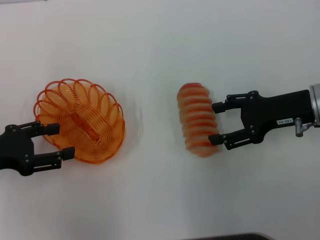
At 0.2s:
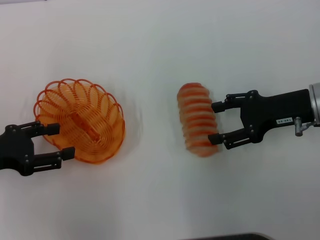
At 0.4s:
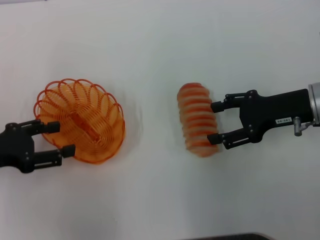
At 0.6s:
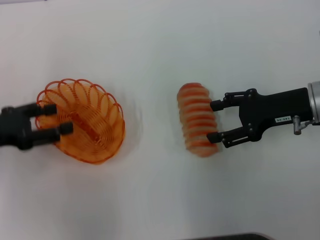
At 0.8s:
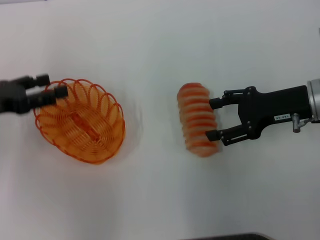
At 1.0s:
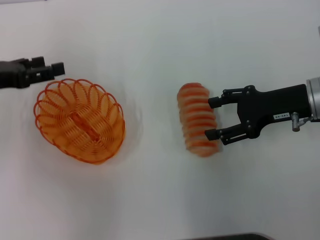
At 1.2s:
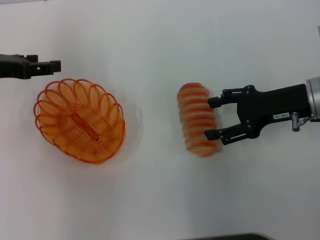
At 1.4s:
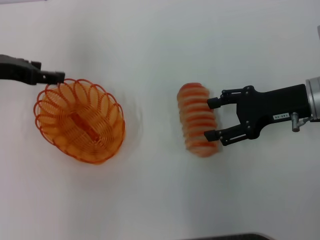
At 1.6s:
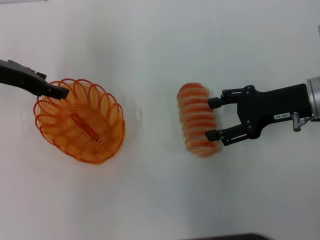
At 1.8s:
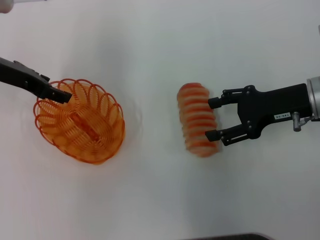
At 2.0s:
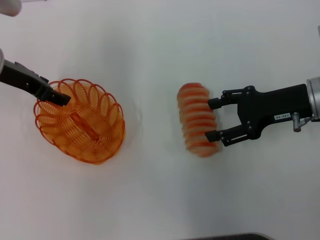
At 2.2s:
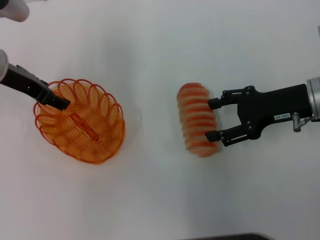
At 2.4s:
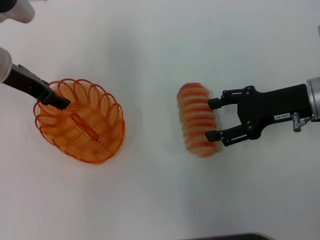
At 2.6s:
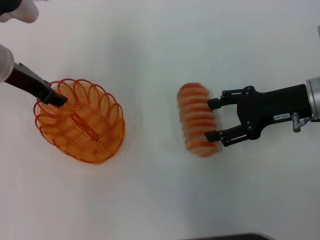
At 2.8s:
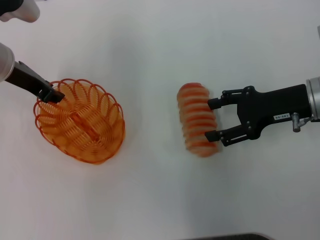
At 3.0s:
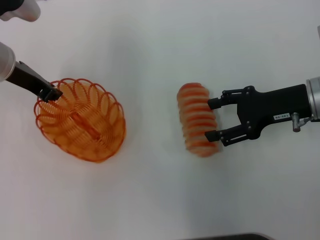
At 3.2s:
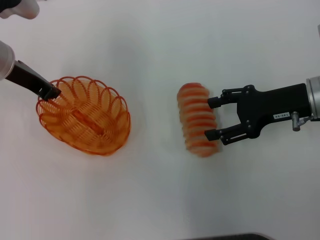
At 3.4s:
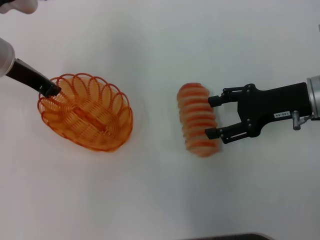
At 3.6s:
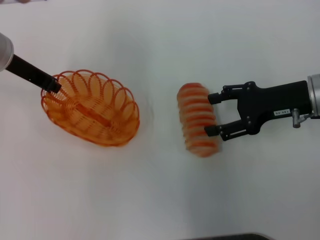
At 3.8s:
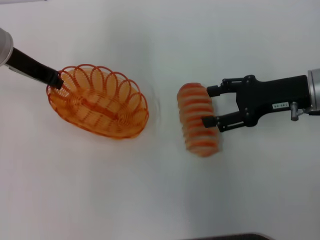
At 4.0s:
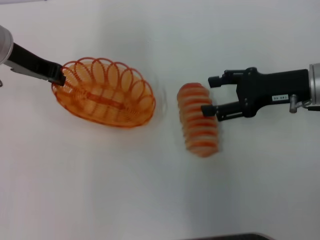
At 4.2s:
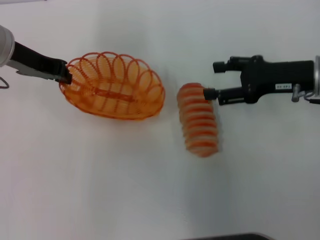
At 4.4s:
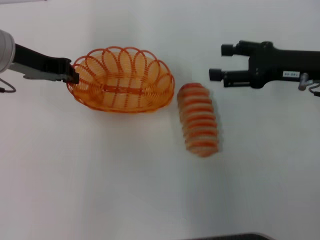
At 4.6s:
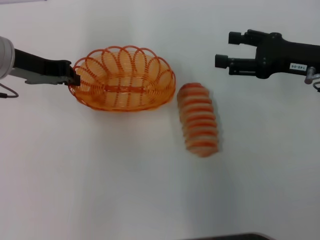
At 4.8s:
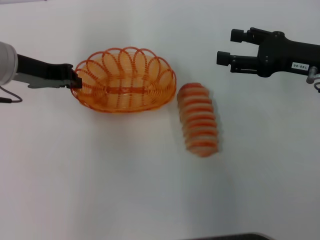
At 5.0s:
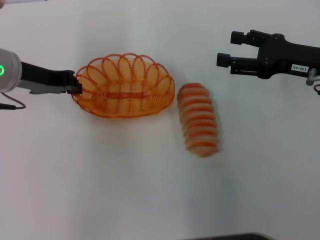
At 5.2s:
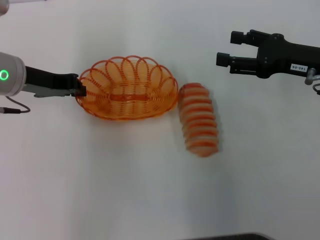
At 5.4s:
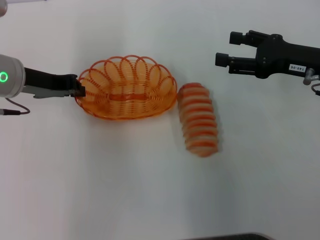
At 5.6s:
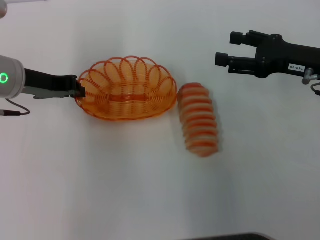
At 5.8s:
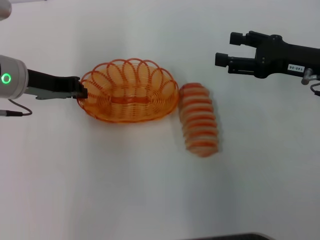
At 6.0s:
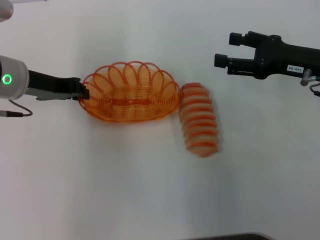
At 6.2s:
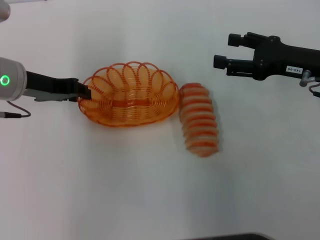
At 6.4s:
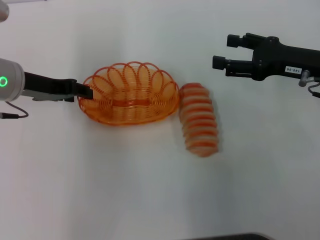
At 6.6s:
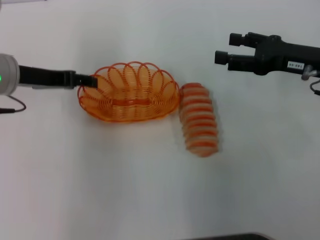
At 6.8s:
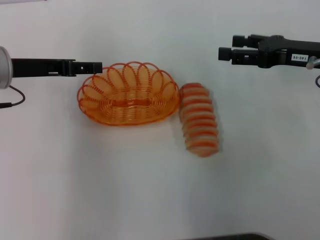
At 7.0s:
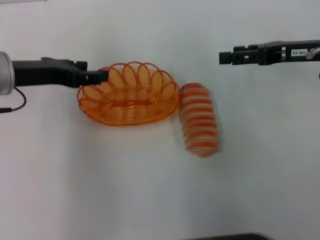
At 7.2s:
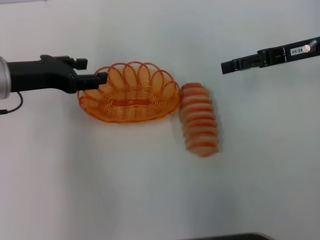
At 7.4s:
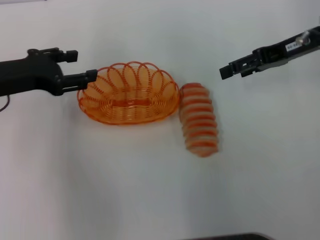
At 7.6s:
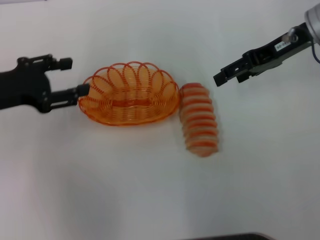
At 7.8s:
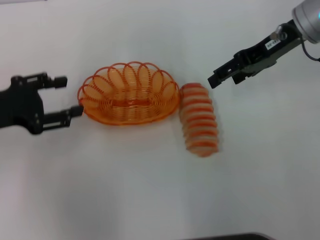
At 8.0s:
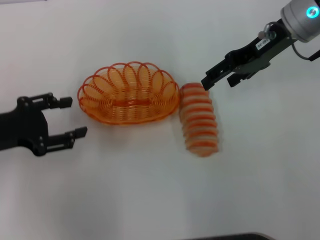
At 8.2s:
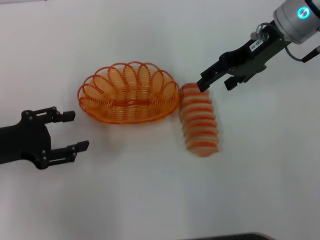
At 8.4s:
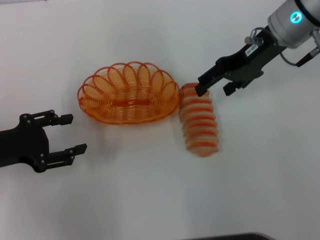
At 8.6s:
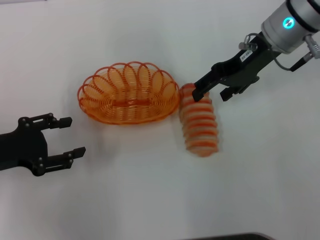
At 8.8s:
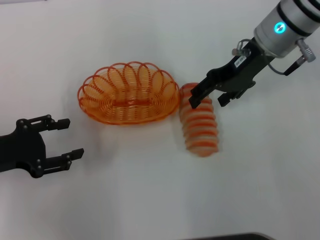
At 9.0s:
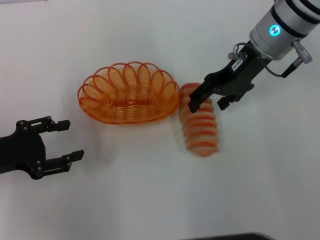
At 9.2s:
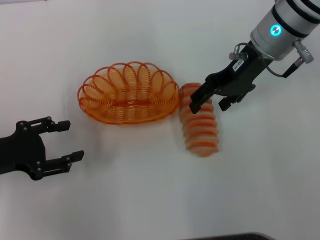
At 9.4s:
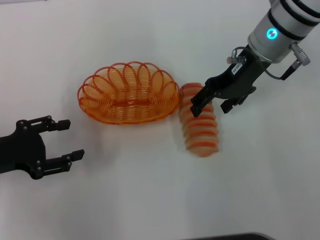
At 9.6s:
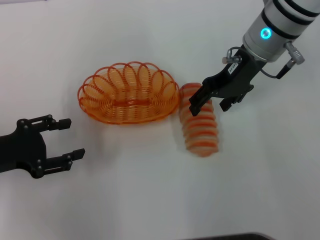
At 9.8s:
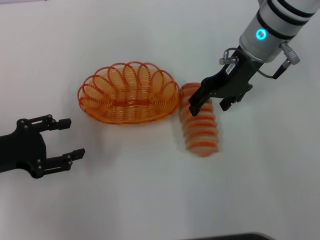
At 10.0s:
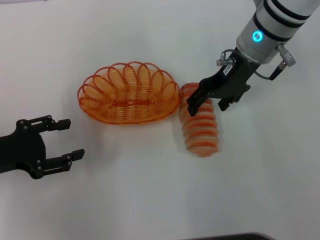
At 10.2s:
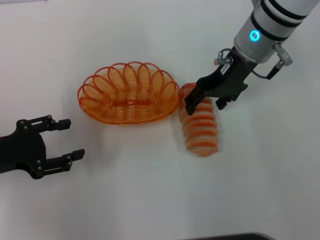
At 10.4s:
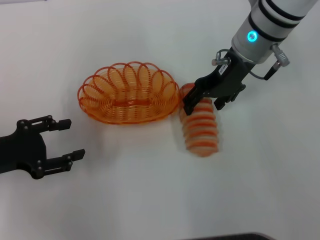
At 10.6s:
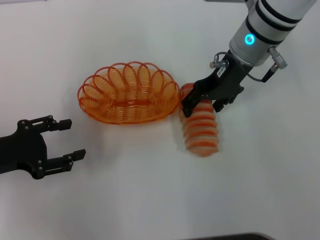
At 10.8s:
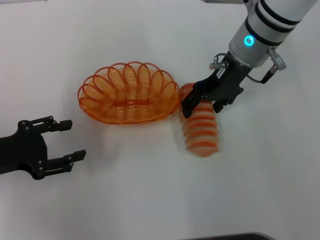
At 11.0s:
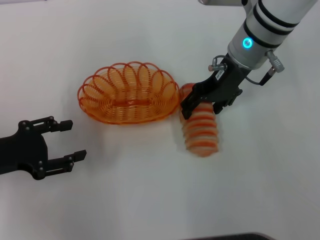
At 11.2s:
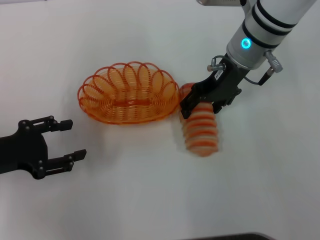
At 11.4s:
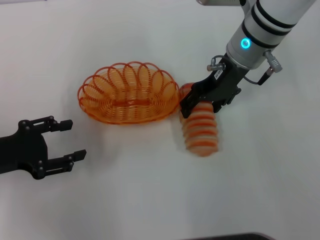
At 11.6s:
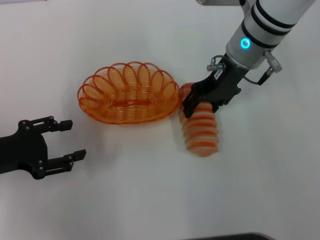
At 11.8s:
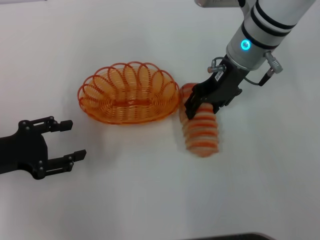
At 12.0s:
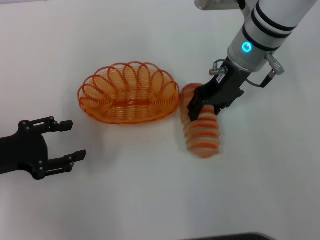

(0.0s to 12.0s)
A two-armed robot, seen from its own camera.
Step, 0.0s - 3.6s: Pick up the basket with the left gripper.
Step, 3.8s - 7.4s: Place the basket in the center of view with the left gripper.
0.0s - 1.6s: The left gripper goes approximately 15 cm forward, upward and to the right.
1.6s - 3.0s: The left gripper closes up.
3.0s - 4.4s: The left gripper closes its fingers.
4.4s - 6.0s: The grippers stay close to where they were, moving slightly.
6.0s - 7.6s: The left gripper goes about 10 cm to the left and backward, and opens up, while the right gripper heads upward and forward, covering roughly 10 cm.
7.6s - 9.0s: The left gripper moves backward and downward, some 10 cm, while the right gripper shifts about 5 cm to the left.
9.0s - 12.0s: The grippers move only a little.

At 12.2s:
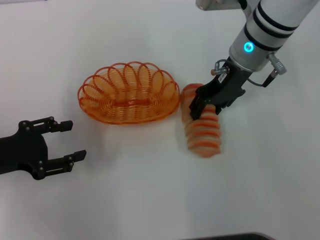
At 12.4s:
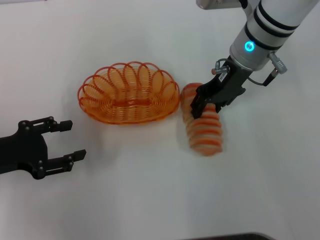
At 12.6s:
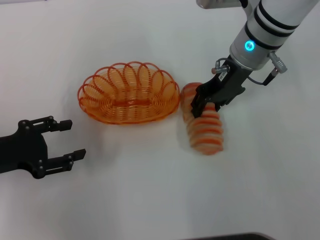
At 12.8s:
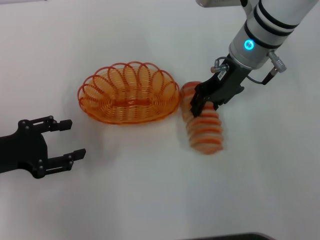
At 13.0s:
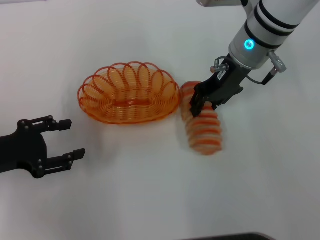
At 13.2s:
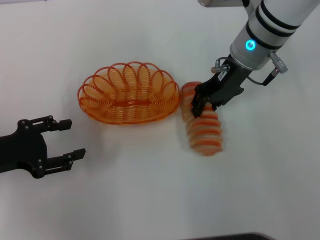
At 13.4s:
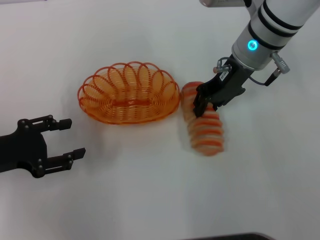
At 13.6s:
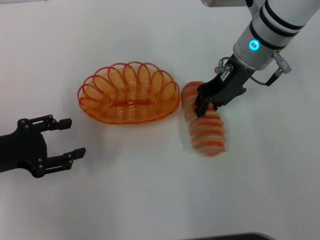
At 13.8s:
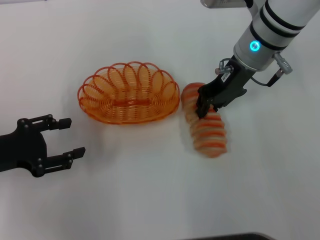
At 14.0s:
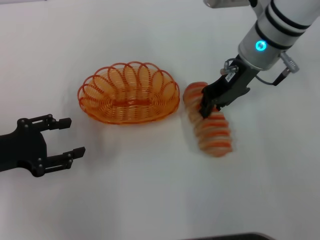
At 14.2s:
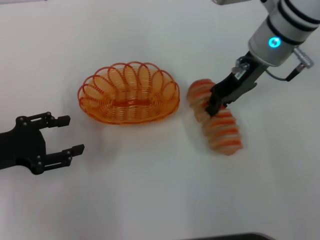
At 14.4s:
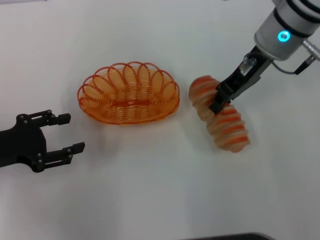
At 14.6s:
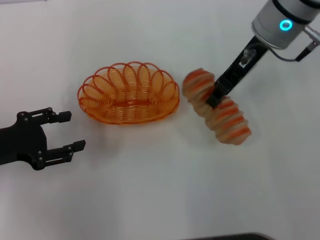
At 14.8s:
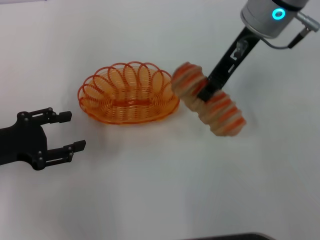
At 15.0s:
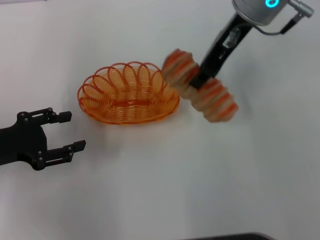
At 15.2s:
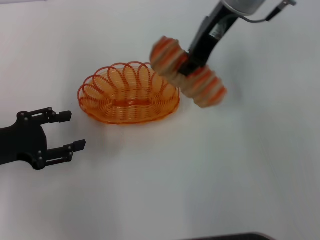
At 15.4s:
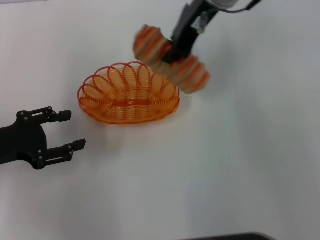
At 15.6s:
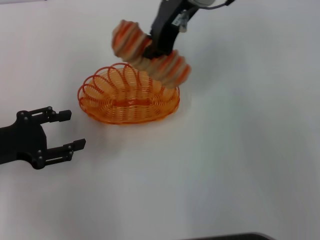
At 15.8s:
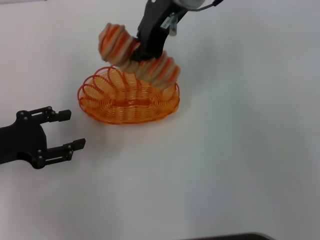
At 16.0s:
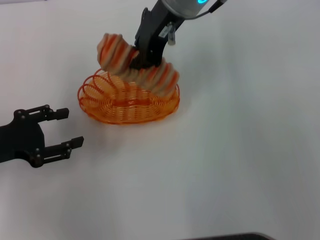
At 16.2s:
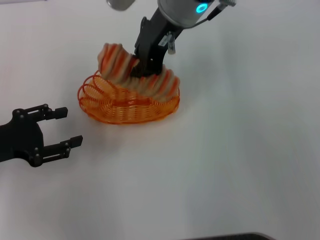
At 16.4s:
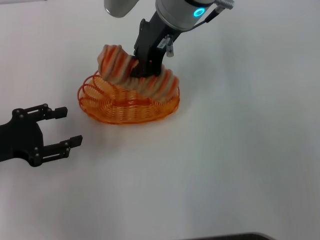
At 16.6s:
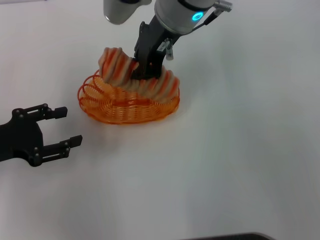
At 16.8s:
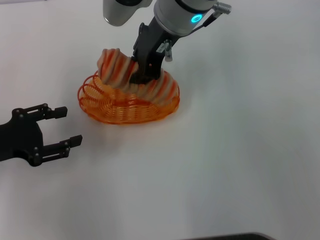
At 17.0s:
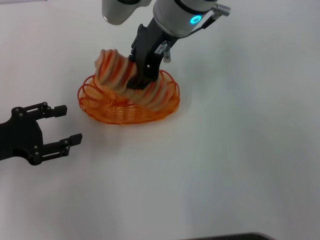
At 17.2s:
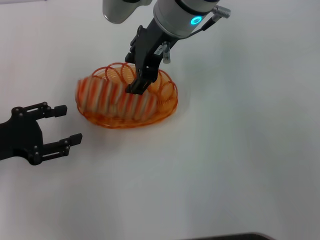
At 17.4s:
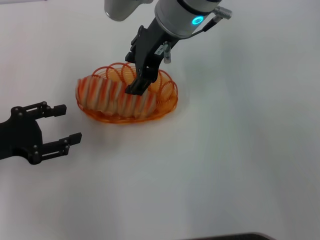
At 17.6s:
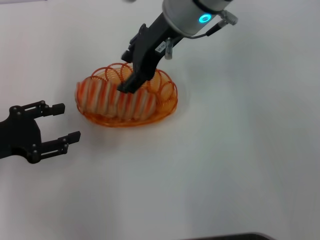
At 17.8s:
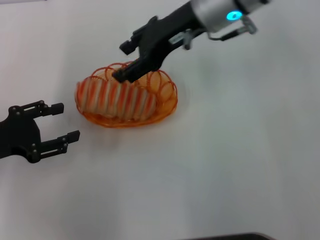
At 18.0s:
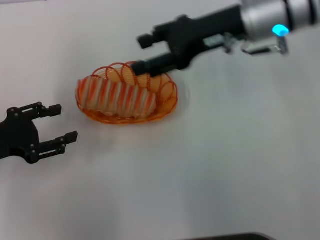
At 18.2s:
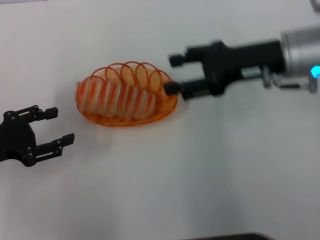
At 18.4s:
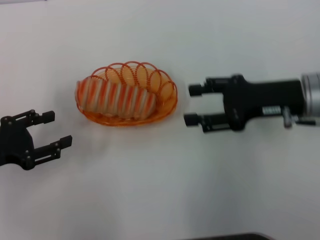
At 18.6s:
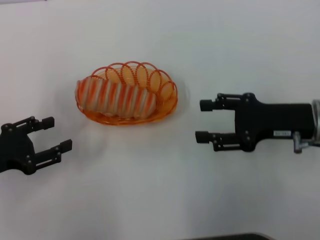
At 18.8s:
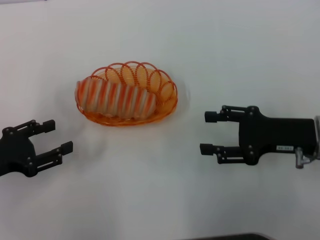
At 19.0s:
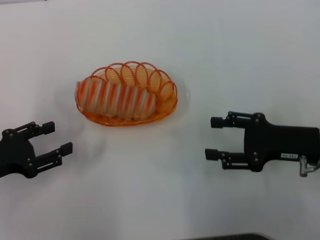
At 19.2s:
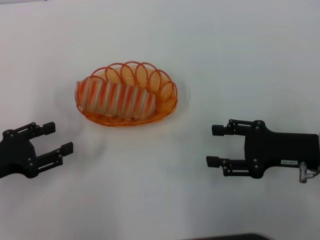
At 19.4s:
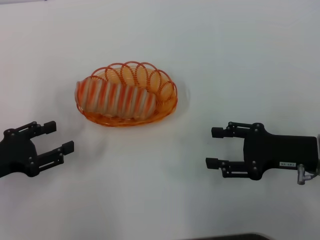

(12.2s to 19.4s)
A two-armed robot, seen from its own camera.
Step, 12.2s - 14.4s: Pick up the long bread with the right gripper.
Step, 14.6s - 18.0s: Place the long bread into the basket with the right gripper.
12.2s - 13.6s: The right gripper closes.
13.6s - 15.0s: The right gripper goes about 10 cm upward.
15.0s - 16.6s: The right gripper is displaced to the left by approximately 10 cm.
16.6s - 18.0s: The right gripper travels to the right by approximately 10 cm, and opens up.
18.0s - 19.4s: The right gripper is displaced backward, downward and to the right by some 20 cm.

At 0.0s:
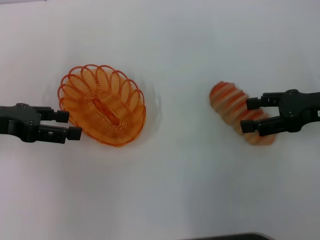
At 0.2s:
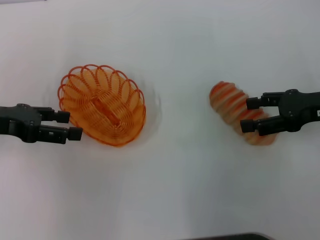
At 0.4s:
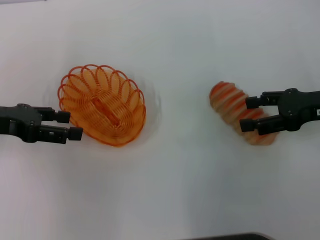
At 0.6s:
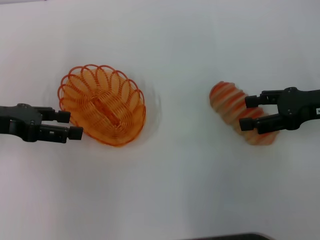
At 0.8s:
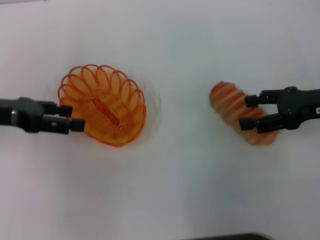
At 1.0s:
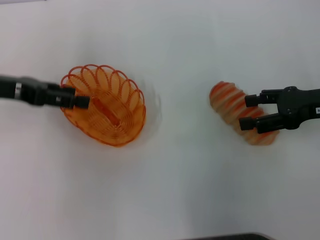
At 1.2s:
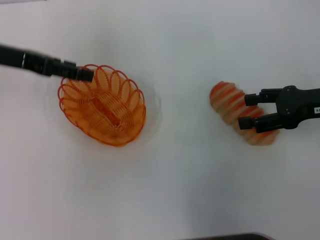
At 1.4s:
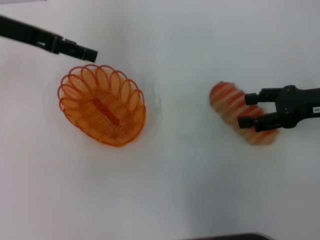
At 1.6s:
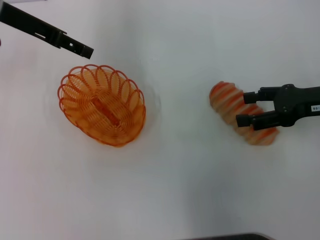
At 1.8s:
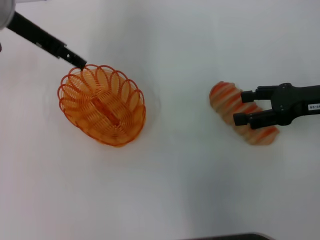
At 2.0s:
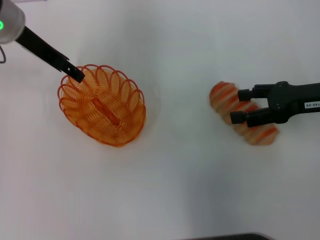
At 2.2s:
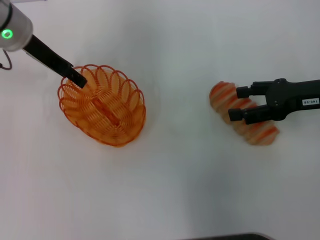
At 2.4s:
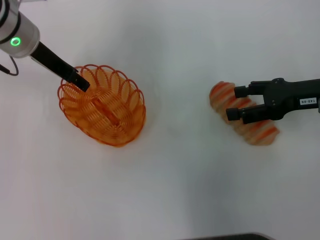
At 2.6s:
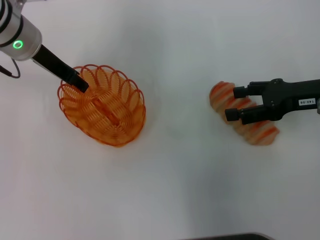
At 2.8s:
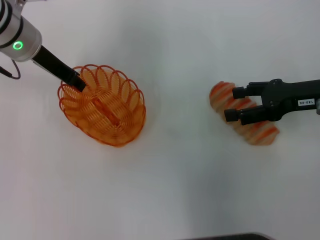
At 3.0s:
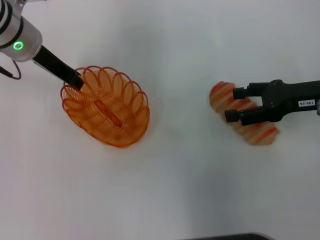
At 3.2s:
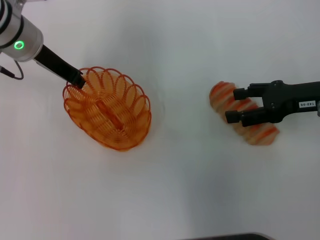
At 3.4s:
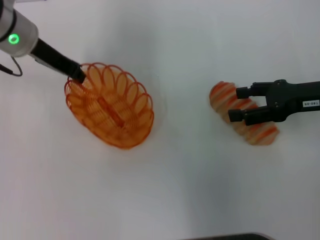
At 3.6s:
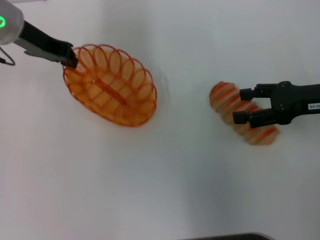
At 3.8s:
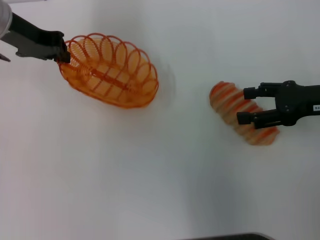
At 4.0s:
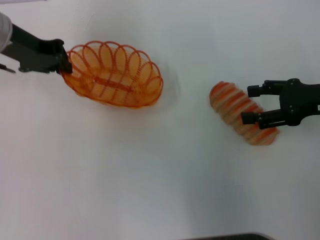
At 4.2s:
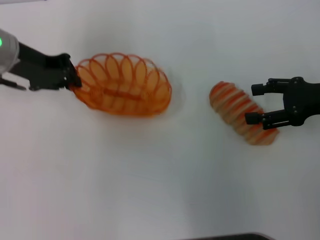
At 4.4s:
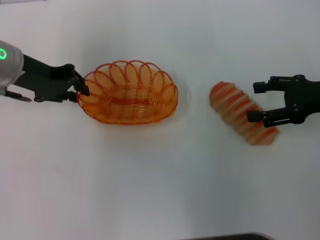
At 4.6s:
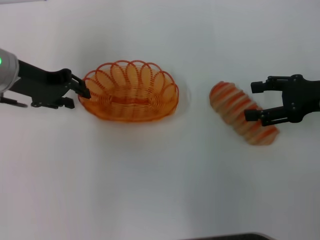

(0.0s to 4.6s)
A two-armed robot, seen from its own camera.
Step, 0.0s - 3.4s: Pick up the basket with the left gripper.
0.0s - 1.6s: The left gripper goes some 15 cm forward, upward and to the right.
1.6s - 3.0s: The left gripper moves downward, some 5 cm, and closes.
3.0s - 4.6s: The left gripper moves roughly 5 cm.
